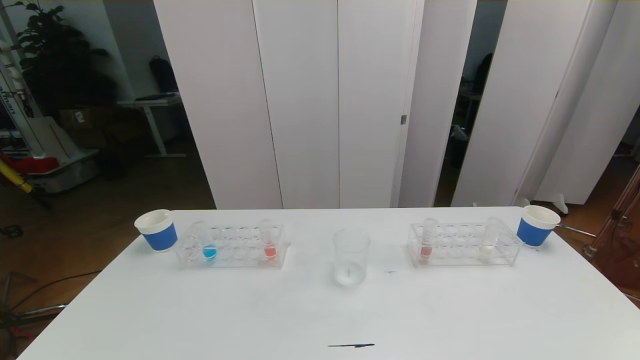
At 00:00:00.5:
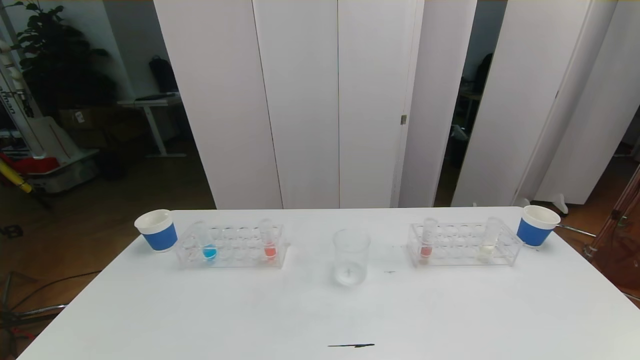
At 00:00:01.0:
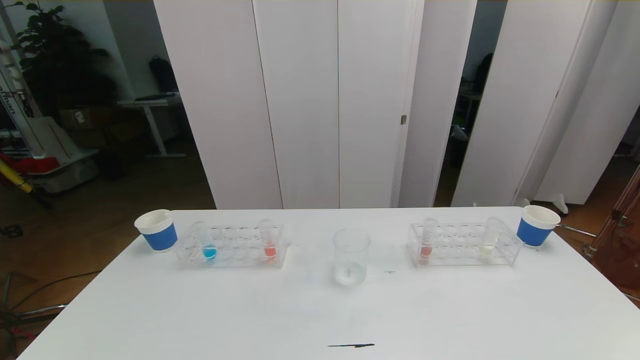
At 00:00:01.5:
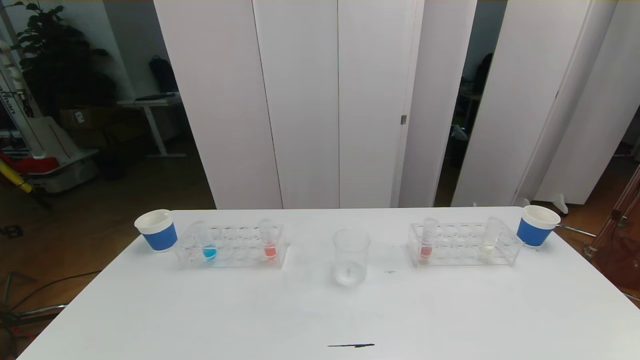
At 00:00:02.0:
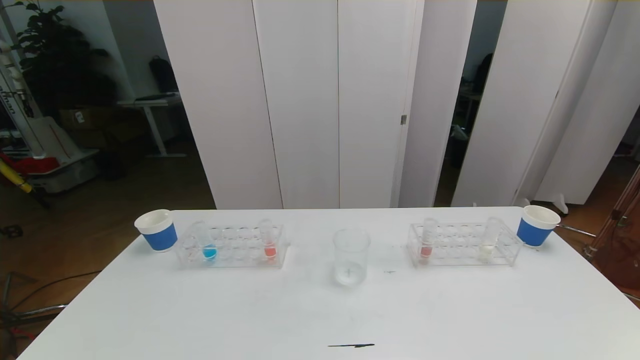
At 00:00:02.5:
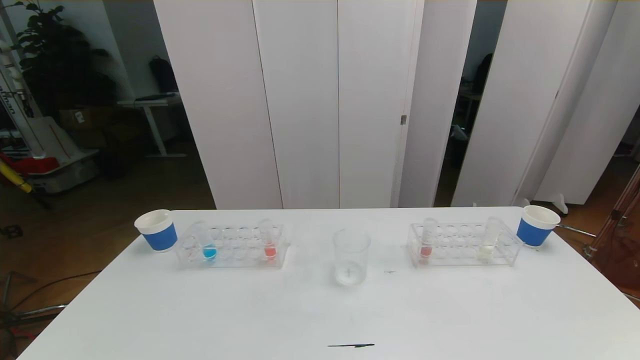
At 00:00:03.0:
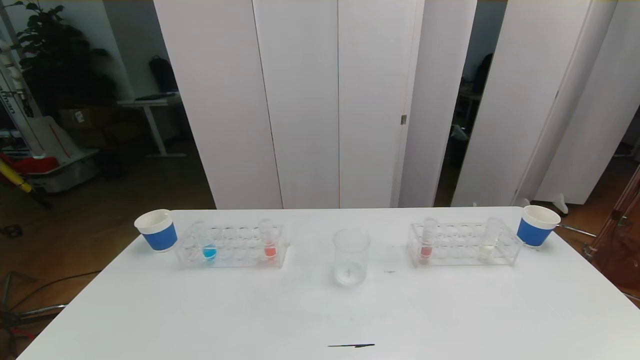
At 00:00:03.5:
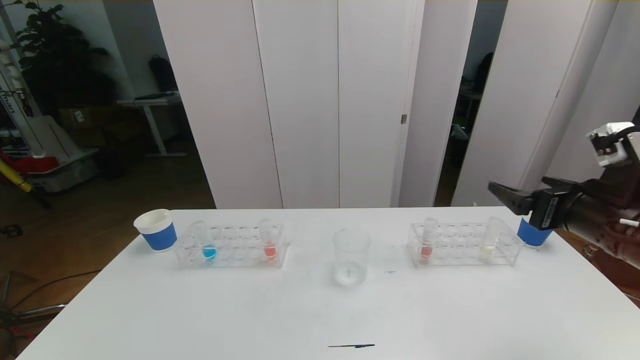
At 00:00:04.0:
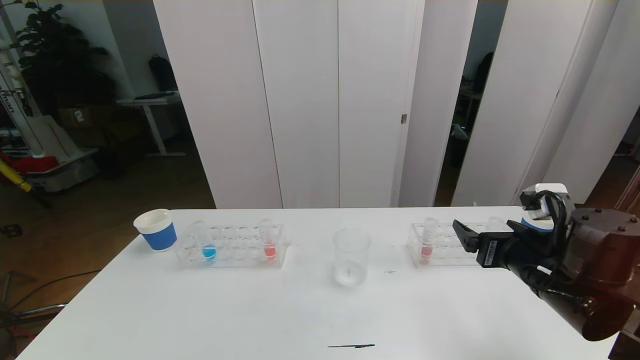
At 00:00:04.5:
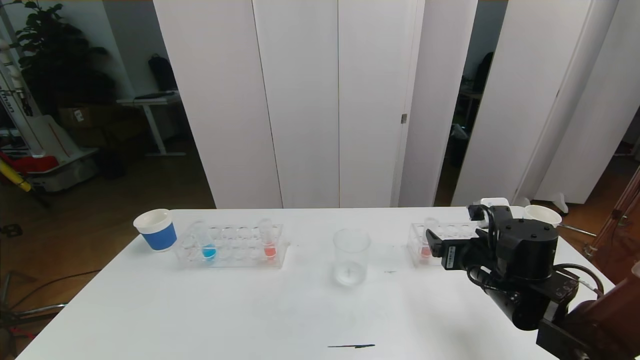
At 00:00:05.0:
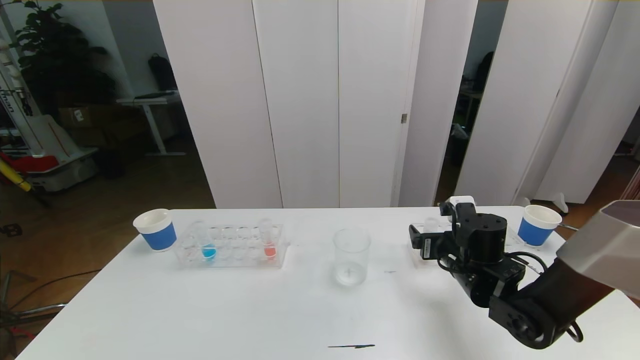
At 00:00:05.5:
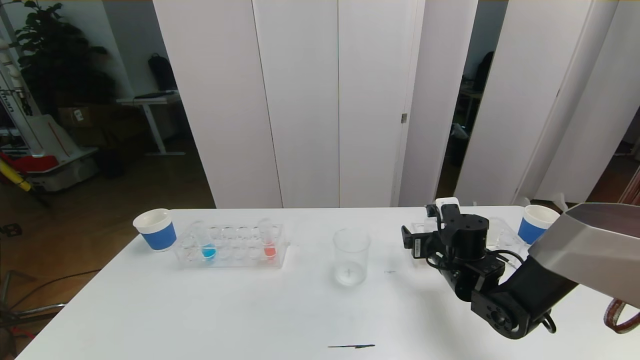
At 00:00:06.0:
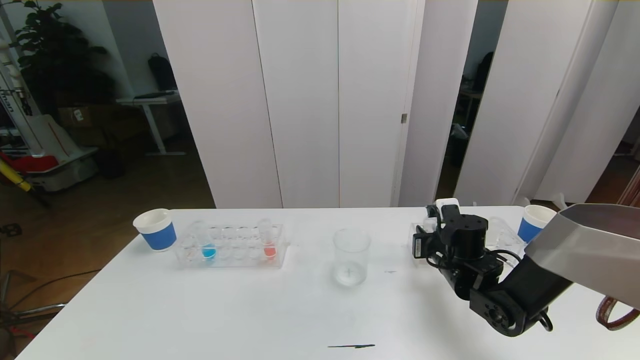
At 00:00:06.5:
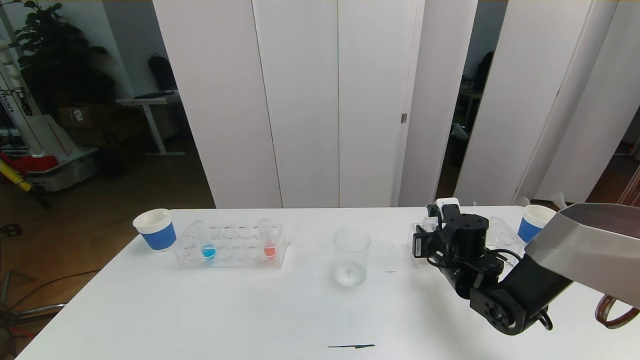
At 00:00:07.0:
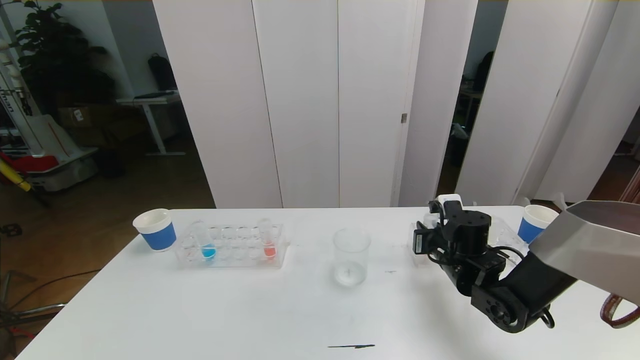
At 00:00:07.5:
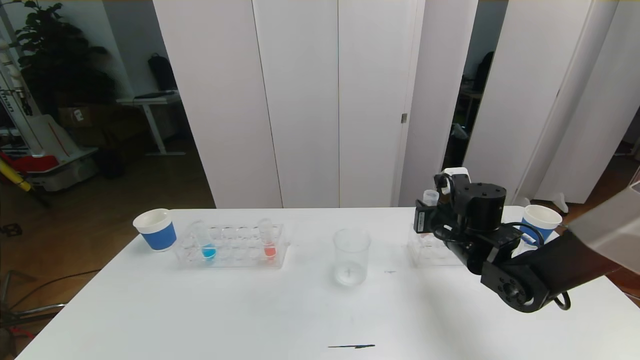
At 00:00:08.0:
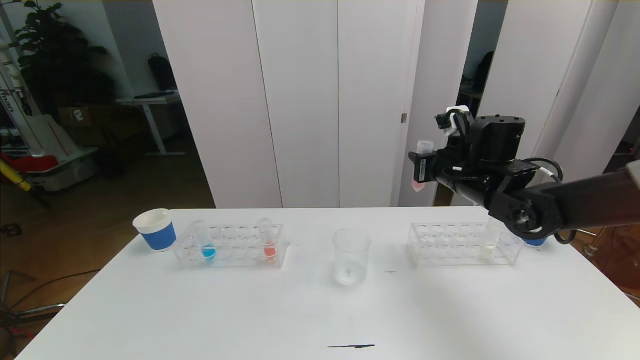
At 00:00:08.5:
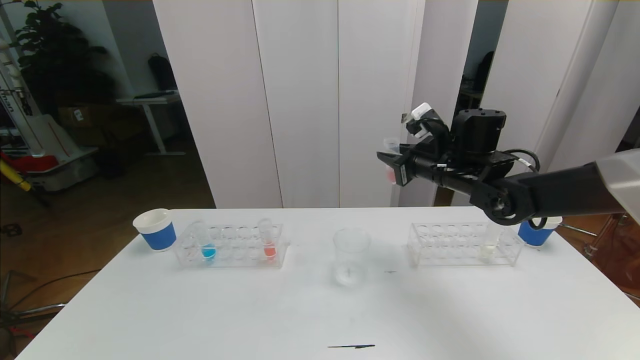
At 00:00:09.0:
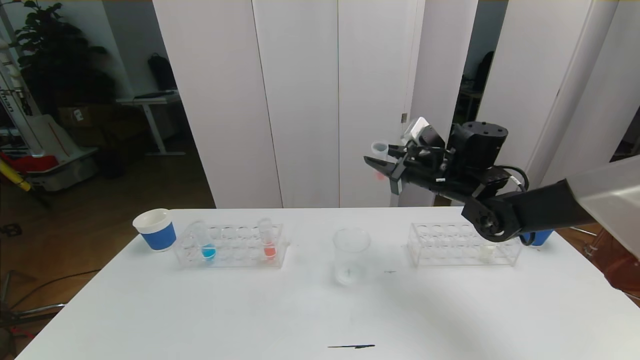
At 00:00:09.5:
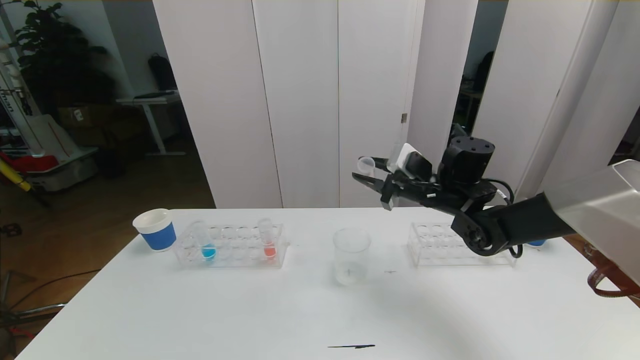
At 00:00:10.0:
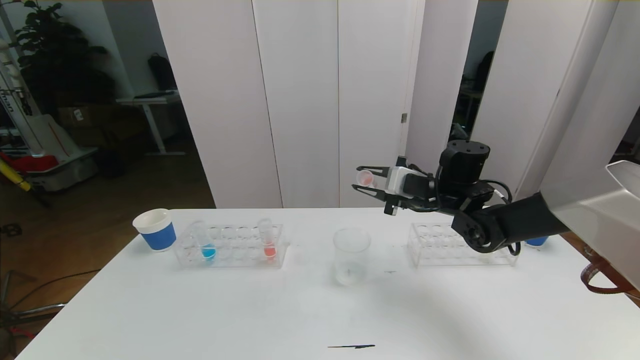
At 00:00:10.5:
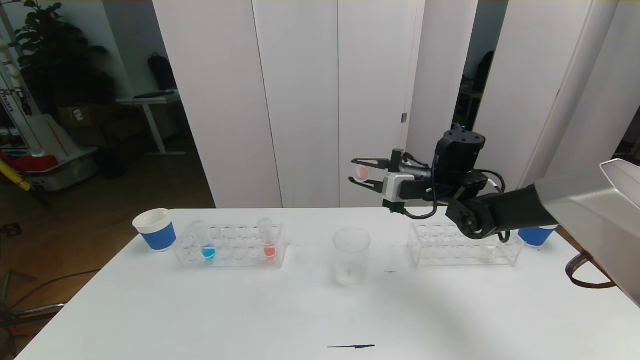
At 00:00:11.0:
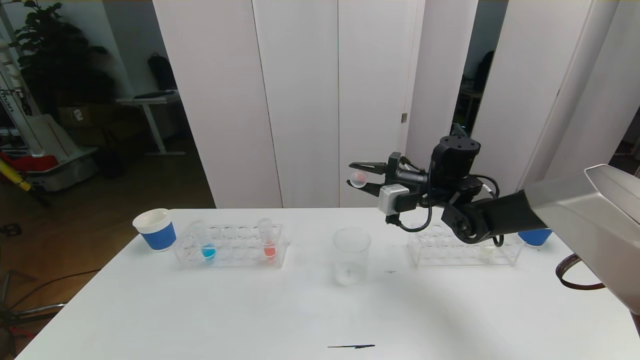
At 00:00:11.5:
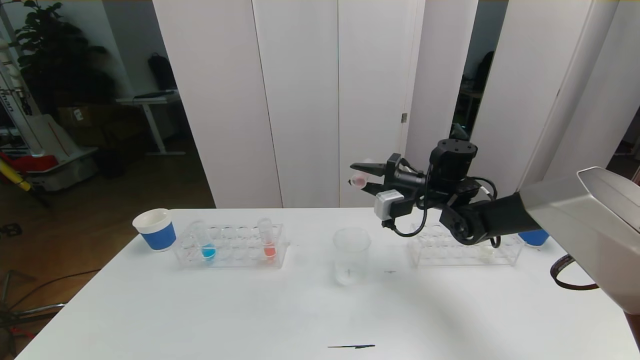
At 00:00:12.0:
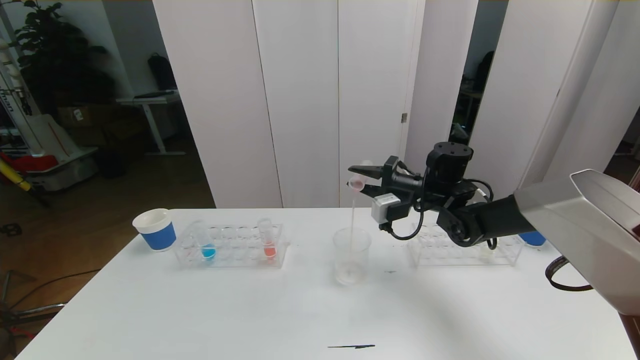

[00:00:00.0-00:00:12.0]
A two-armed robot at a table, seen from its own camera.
Task of the whole recording: pick up the test tube with red pigment the test tube with blue pigment and the test tube with white pigment by grippers and pour them into the beaker.
00:00:00.0 to 00:00:02.0: Both grippers stay about where they are.
00:00:02.0 to 00:00:04.0: The right gripper is displaced forward by about 30 cm.
00:00:04.0 to 00:00:06.0: The right gripper is displaced forward, downward and to the left by about 15 cm, and closes.
00:00:06.0 to 00:00:08.0: The right gripper moves upward, roughly 15 cm.
00:00:08.0 to 00:00:10.0: The right gripper shifts by some 5 cm.

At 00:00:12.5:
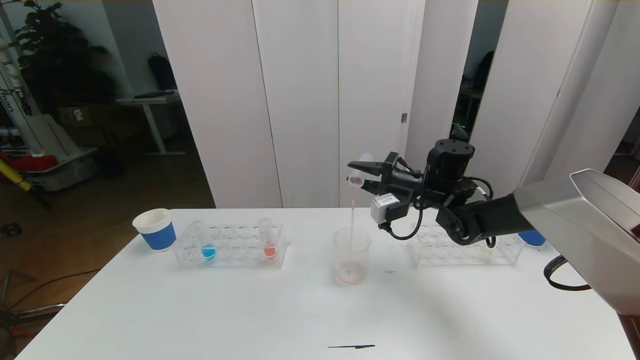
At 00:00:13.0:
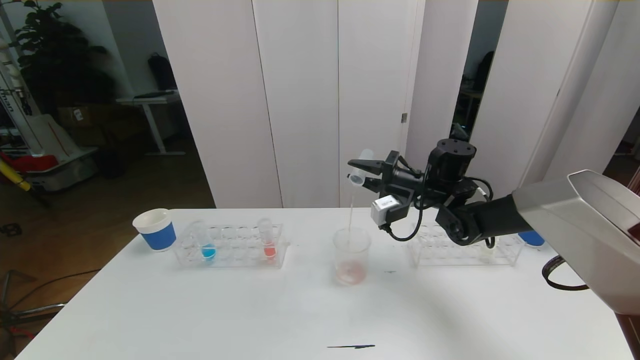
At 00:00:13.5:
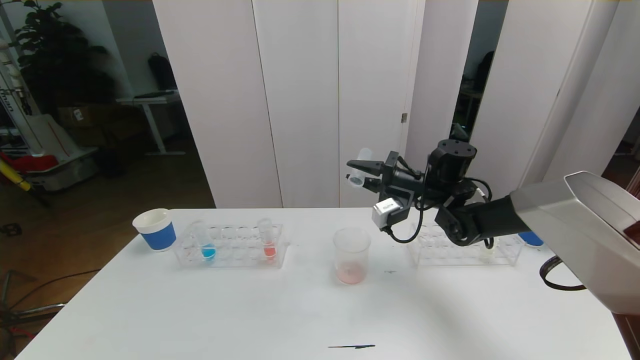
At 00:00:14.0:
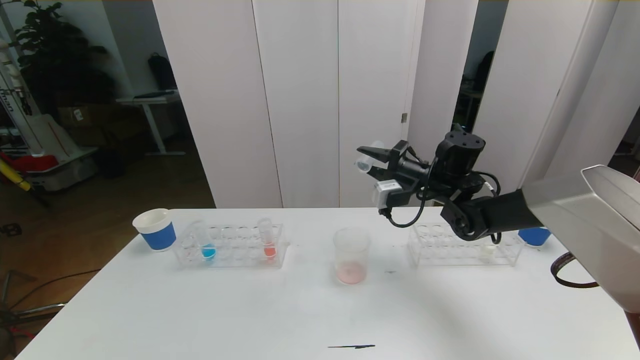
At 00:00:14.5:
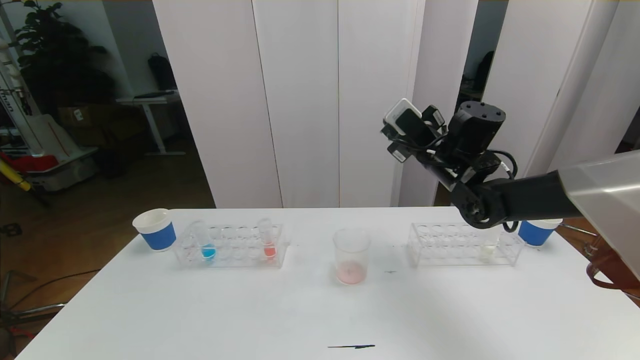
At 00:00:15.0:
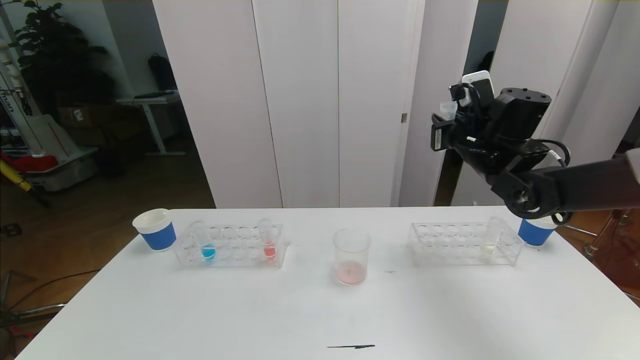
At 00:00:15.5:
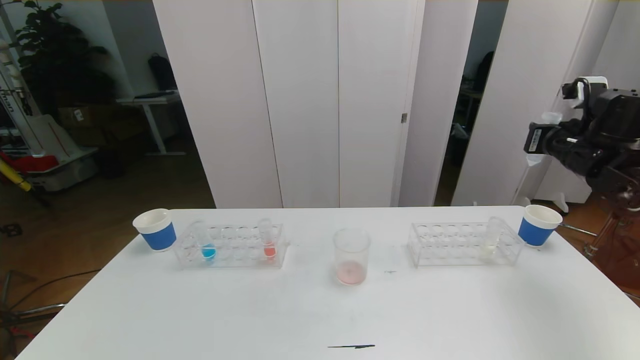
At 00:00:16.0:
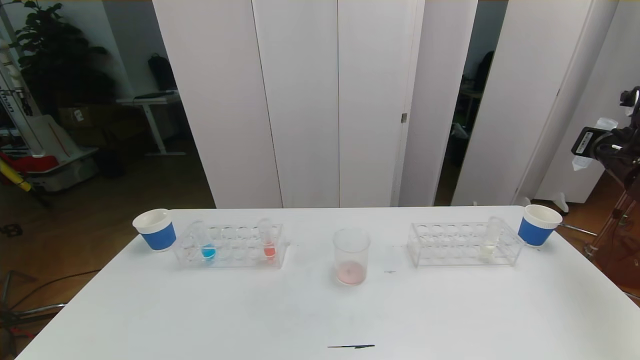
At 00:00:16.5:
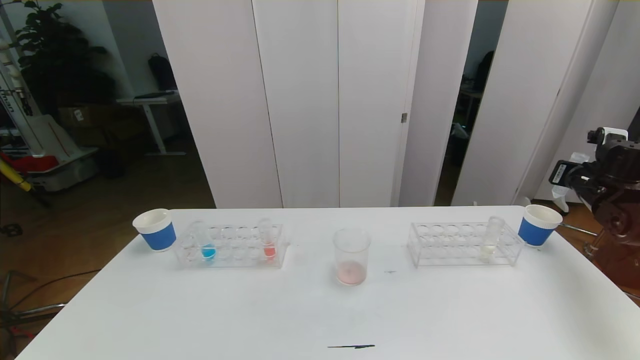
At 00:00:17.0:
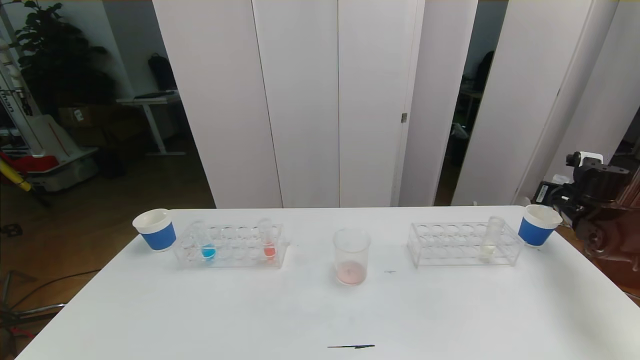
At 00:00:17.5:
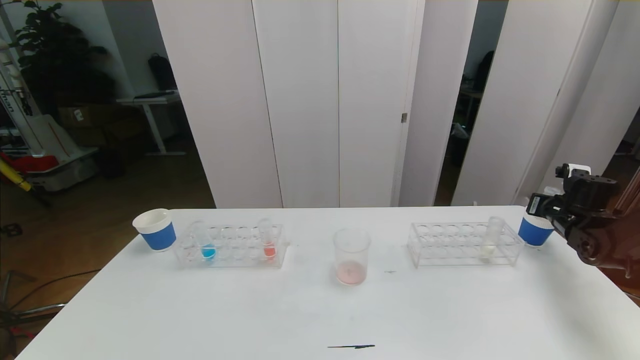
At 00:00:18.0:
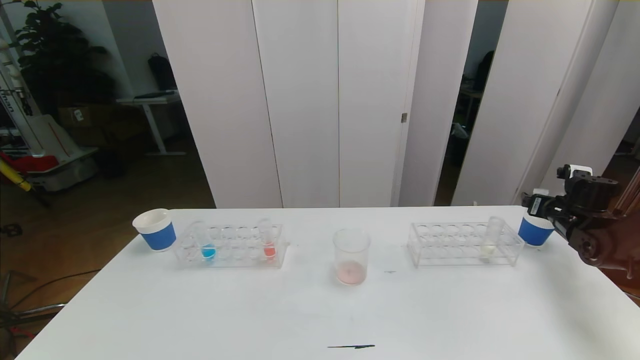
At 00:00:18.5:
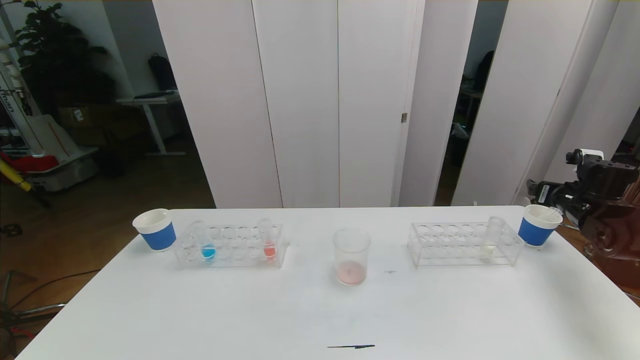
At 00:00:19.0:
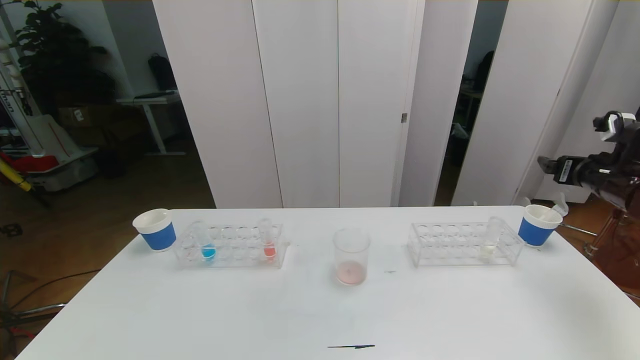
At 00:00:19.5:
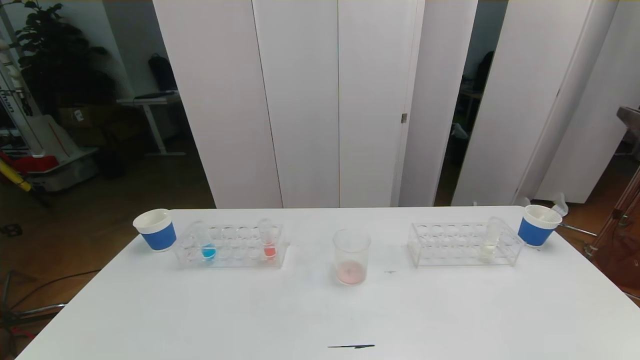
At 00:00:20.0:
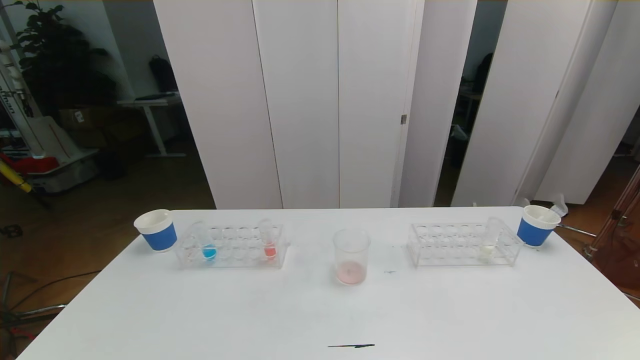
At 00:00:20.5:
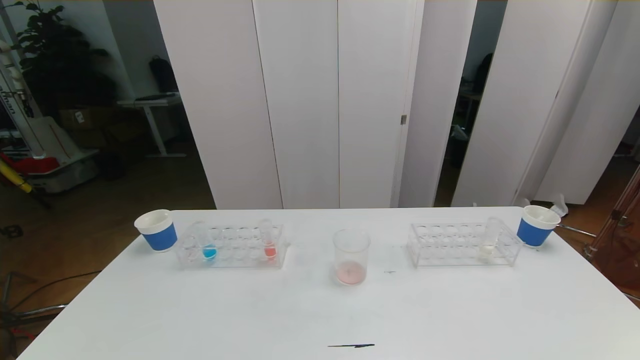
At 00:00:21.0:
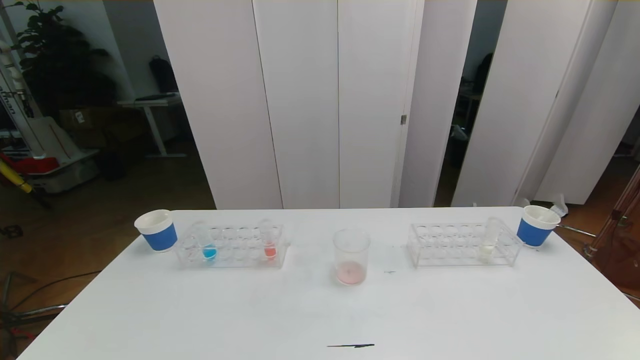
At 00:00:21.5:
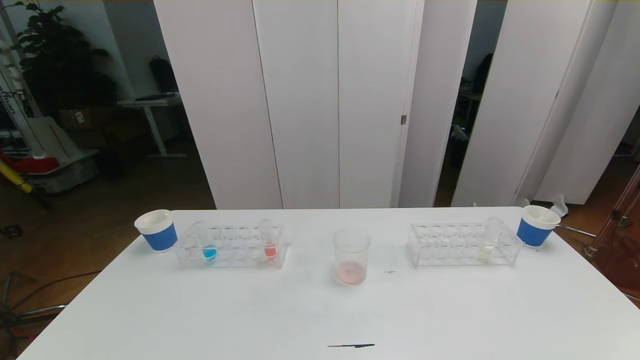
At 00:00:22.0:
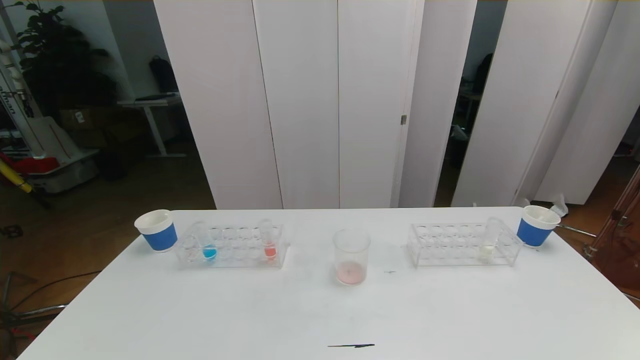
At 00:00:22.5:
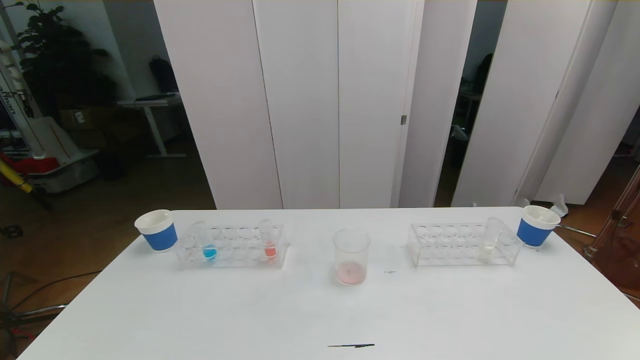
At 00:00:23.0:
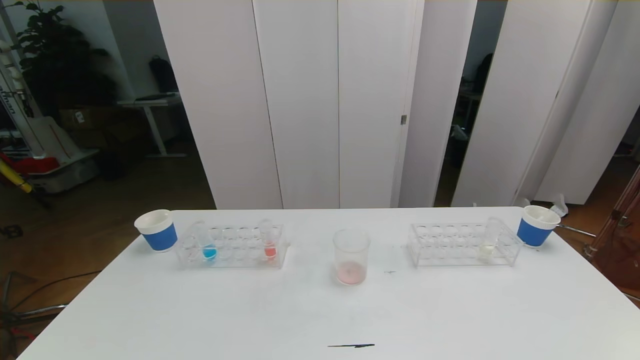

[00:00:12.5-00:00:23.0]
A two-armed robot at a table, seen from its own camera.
Task of the whole recording: pick up the test tube with red pigment the test tube with blue pigment and the test tube with white pigment by grippers and pour them into the beaker.
Step, 00:00:12.5 to 00:00:21.0: Pour the red reagent into the graduated cylinder and place the test tube into the paper cup.
00:00:12.5 to 00:00:14.5: The right gripper shifts some 5 cm upward.
00:00:14.5 to 00:00:16.5: The right gripper travels to the right by roughly 30 cm.
00:00:16.5 to 00:00:19.0: The right gripper moves roughly 10 cm downward and comes back, and opens up.
00:00:19.0 to 00:00:21.0: The right gripper travels backward by some 40 cm.
